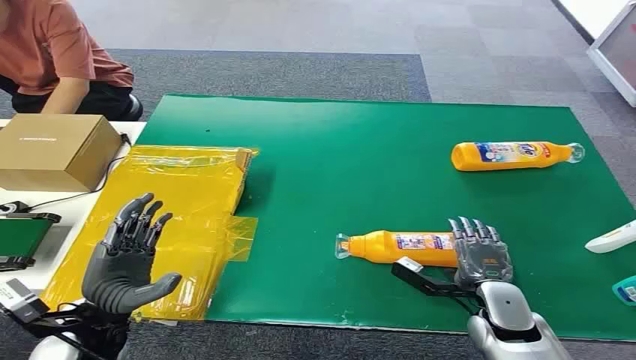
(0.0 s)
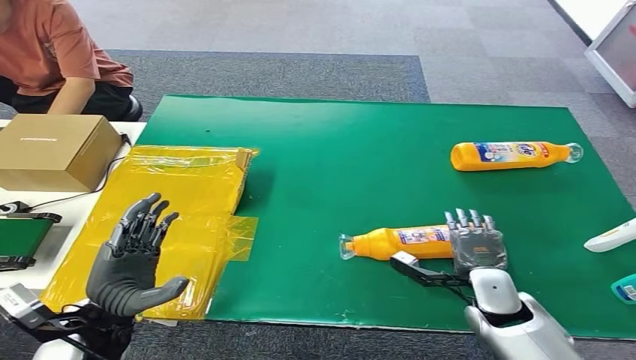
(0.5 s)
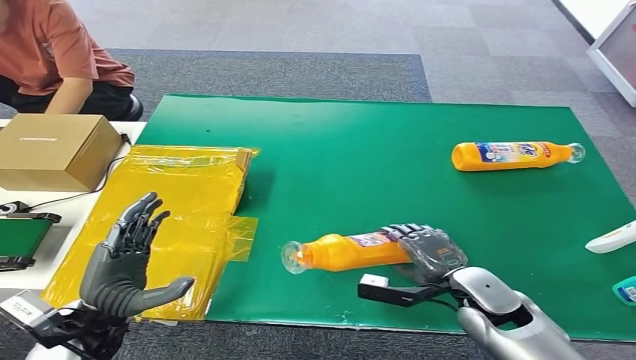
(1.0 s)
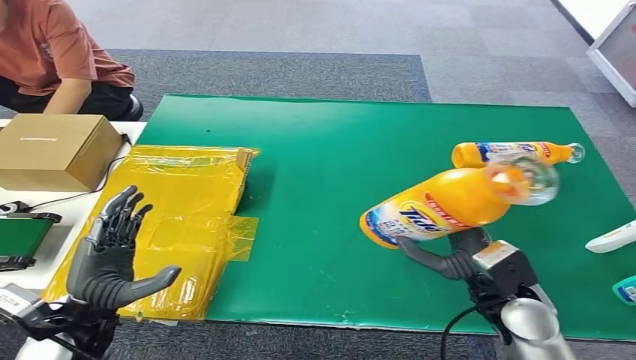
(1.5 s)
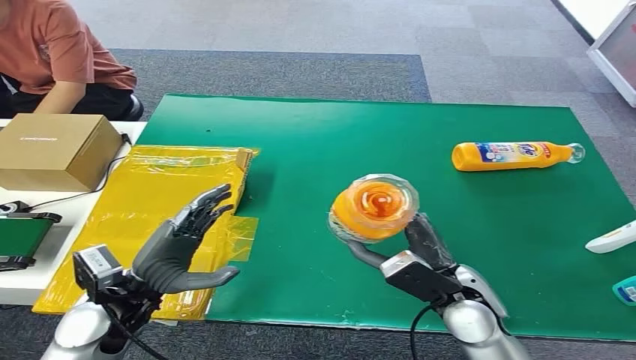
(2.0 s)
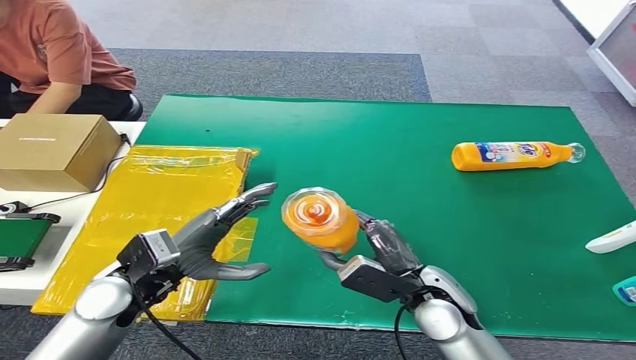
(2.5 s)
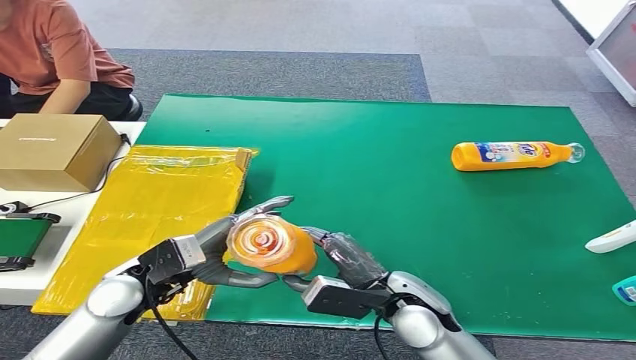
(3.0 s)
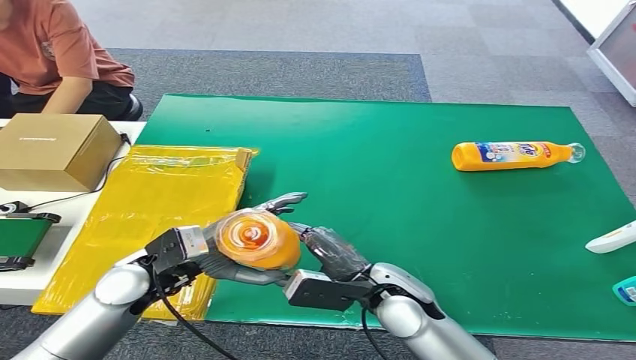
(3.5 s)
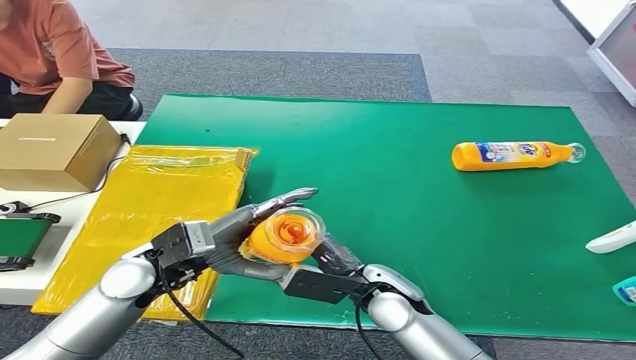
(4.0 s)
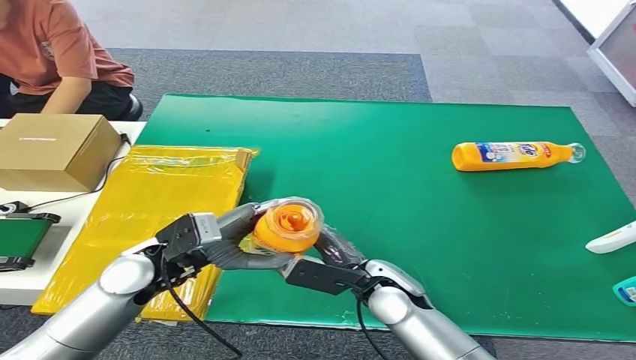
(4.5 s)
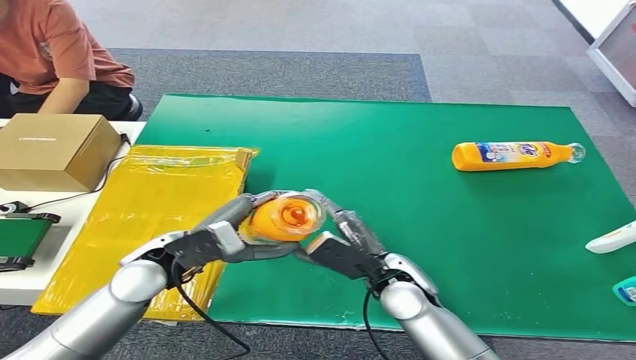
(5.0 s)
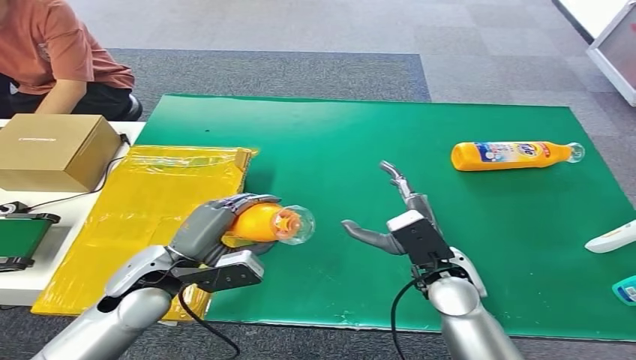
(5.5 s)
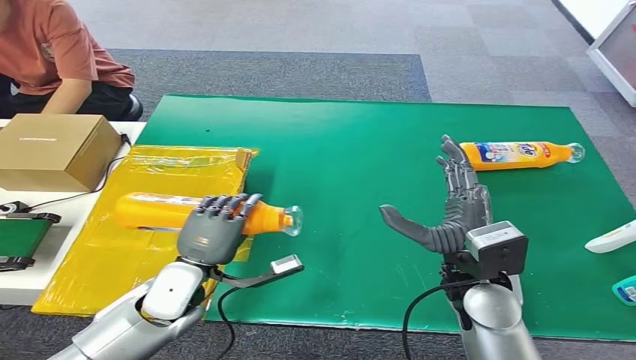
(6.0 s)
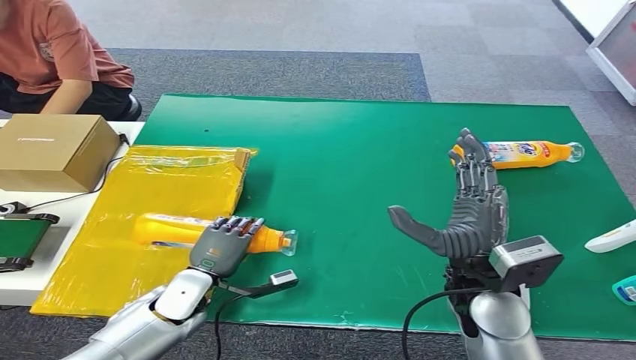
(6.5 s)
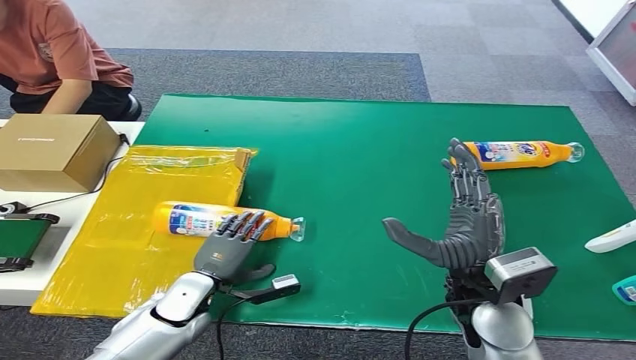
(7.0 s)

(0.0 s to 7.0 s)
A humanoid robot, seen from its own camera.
Step, 0.0 s - 2.0 s: Pick up the bottle from the table.
Step, 2.5 s - 7.0 s: Turn the bottle to the front side.
2.0 s - 3.5 s: The left hand shifts by about 5 cm. Meanwhile the right hand moves to the left, roughly 10 cm.
3.5 s - 5.0 s: There are only small adjustments of the hands.
